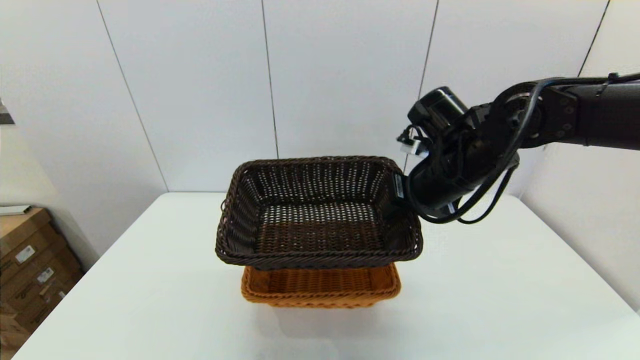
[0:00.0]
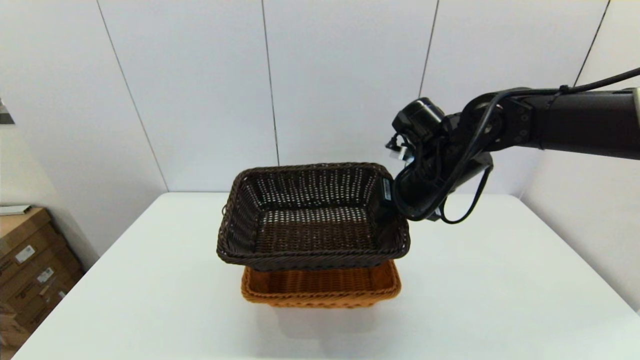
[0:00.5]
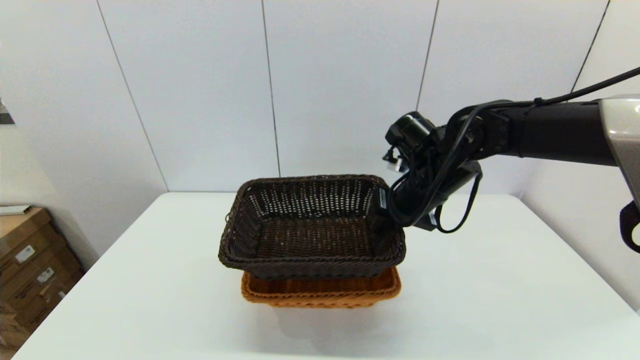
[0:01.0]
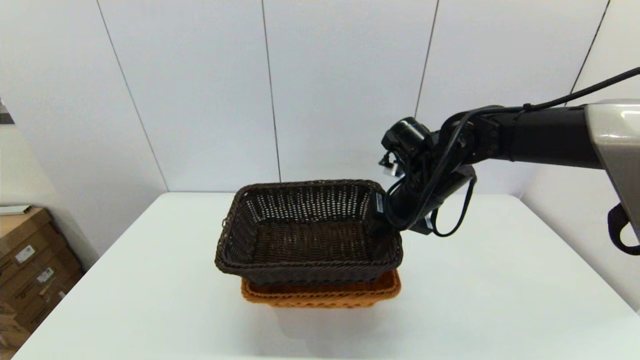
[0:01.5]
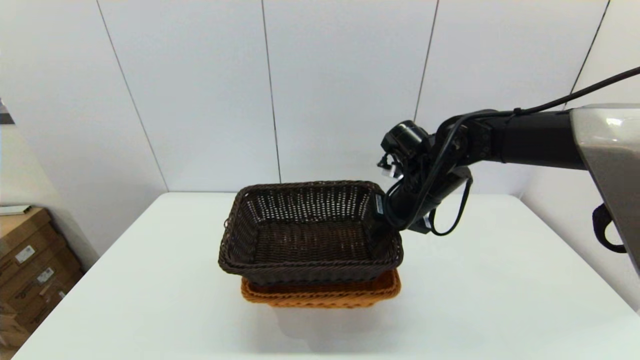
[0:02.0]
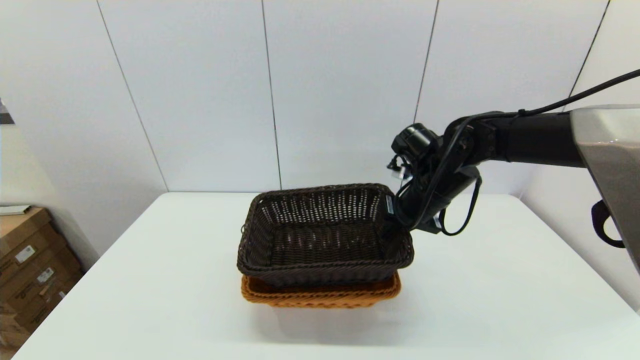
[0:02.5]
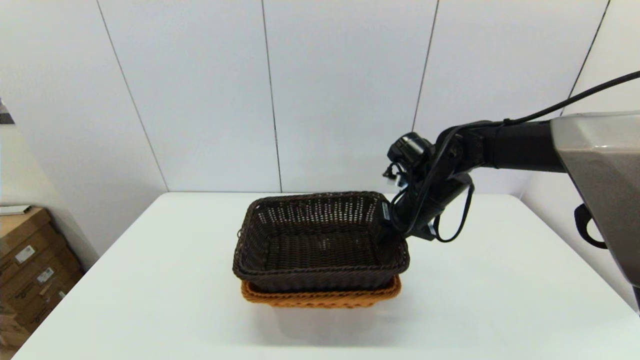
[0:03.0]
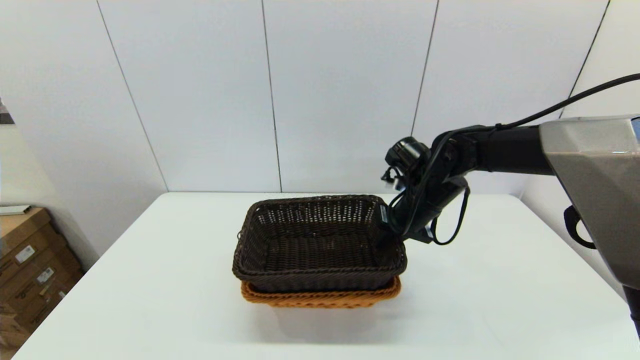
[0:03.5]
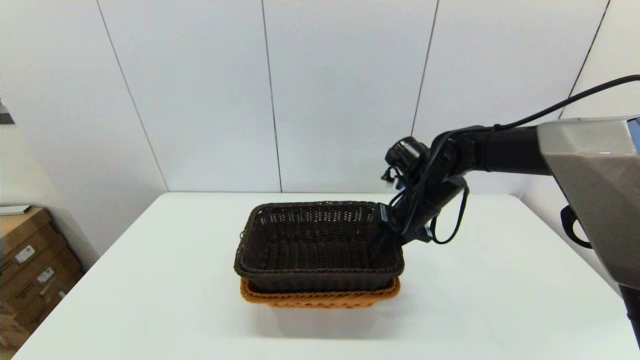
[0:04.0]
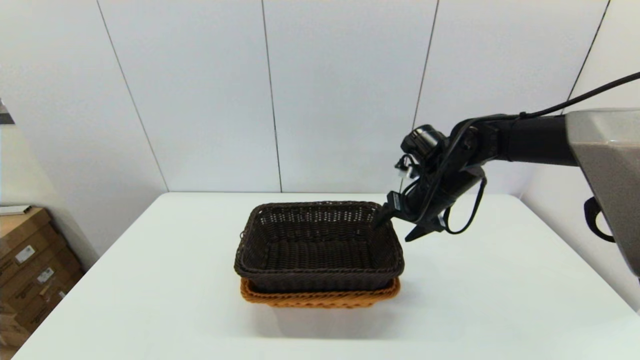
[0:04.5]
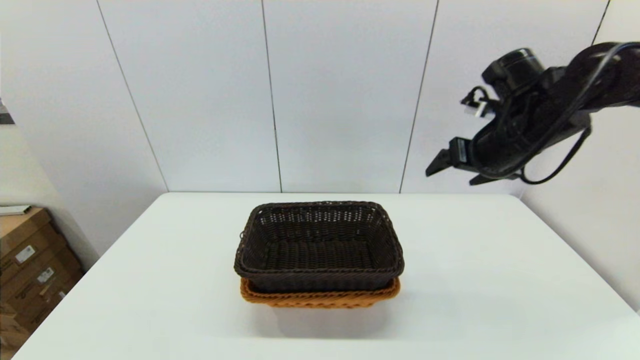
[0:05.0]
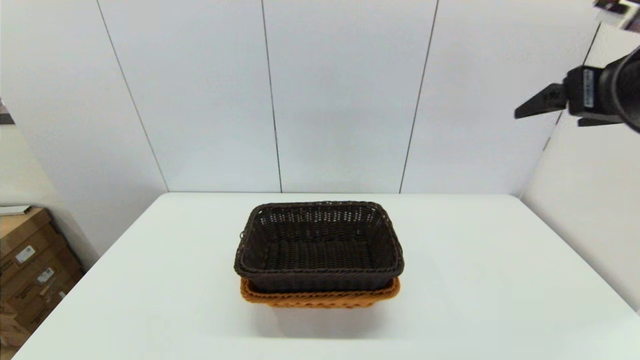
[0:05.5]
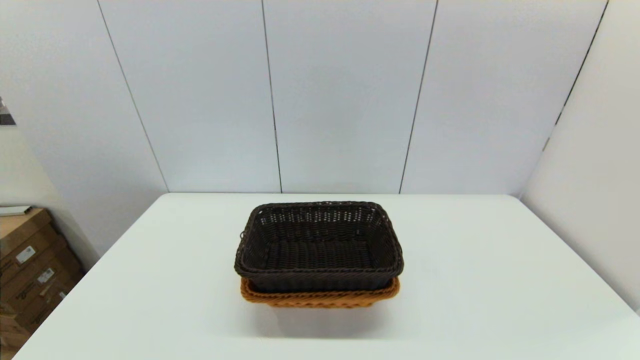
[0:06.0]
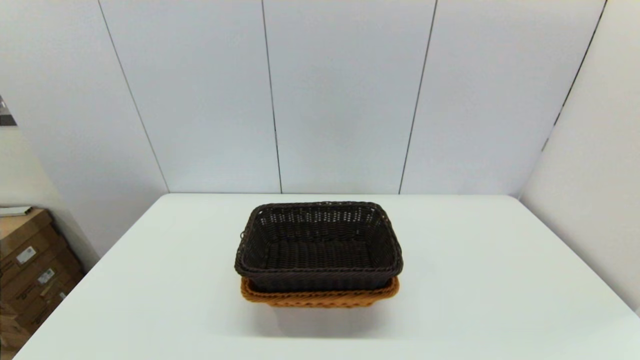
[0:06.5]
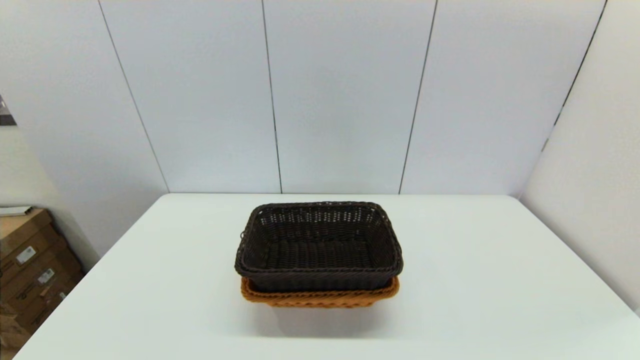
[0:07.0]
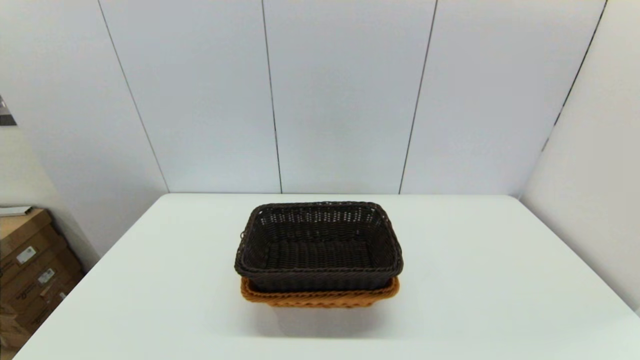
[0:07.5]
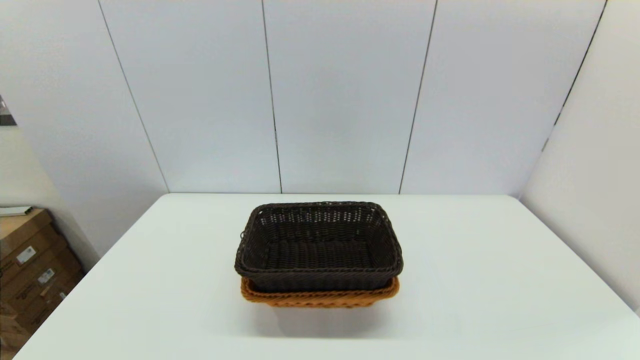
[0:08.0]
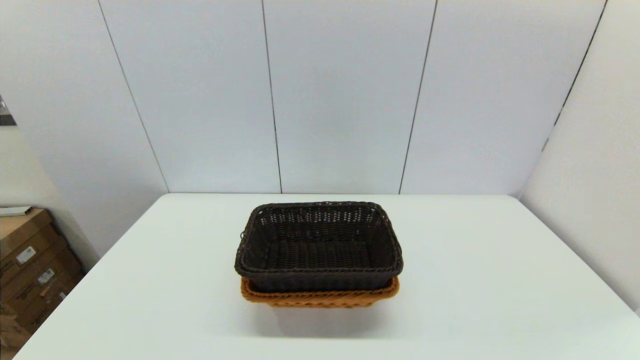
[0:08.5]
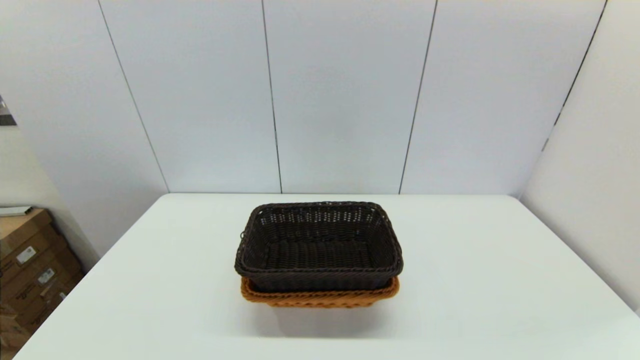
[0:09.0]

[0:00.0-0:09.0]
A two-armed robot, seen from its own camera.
Task of the whole recording: stack a basket on top of another basket.
Step, 0:00.0 to 0:04.5: Place the dark basket into the light color basket with the right gripper.
0:00.0 to 0:02.0: The right gripper moves downward, some 5 cm.
0:02.0 to 0:04.5: The right gripper opens its fingers.
0:04.5 to 0:07.0: The right gripper heads backward, covering some 50 cm.
